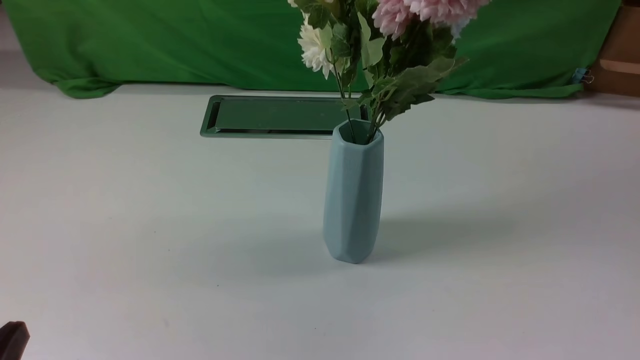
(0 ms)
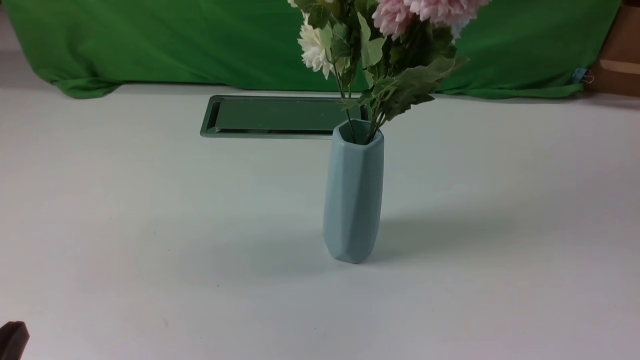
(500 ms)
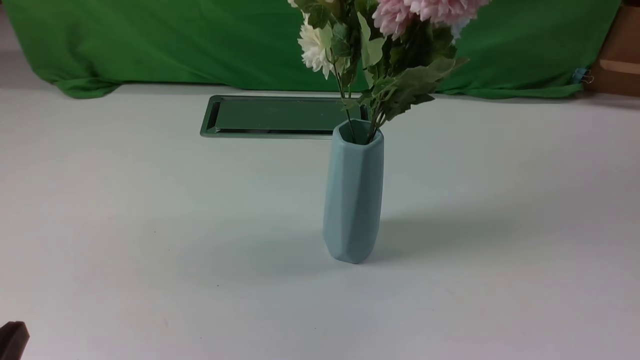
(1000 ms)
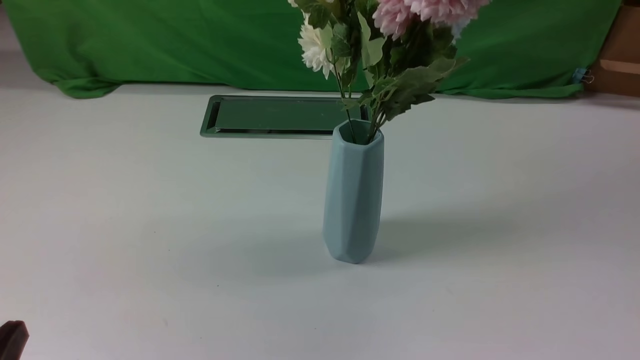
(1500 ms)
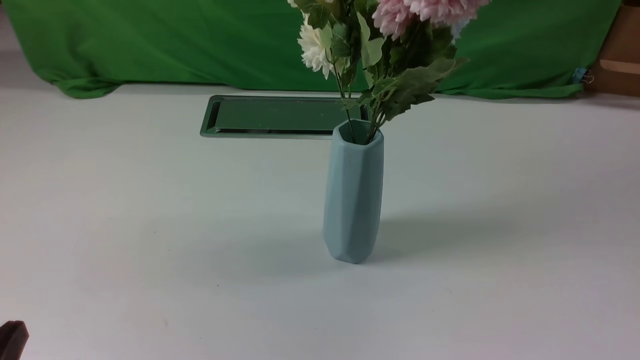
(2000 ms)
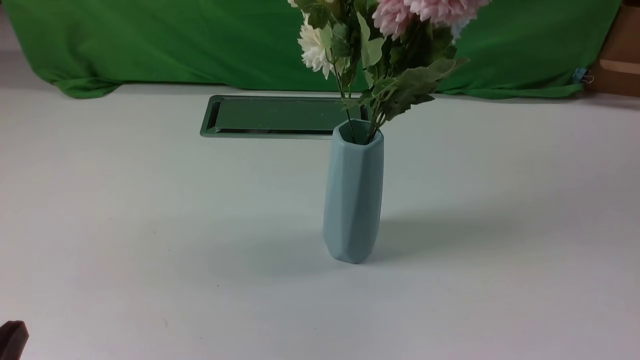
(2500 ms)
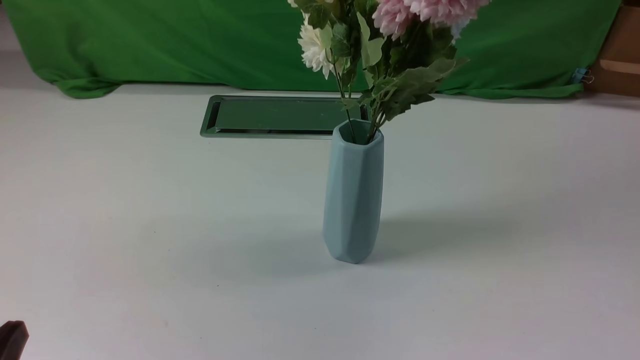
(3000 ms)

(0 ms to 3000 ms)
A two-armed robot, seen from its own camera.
Task of the whole recording: insert the flowers into the vase on the white table.
1500 ms - 3000 ms: Neither gripper changes place.
